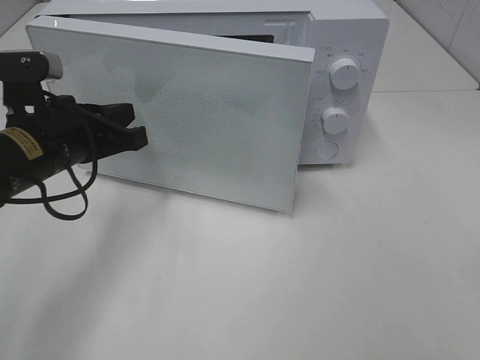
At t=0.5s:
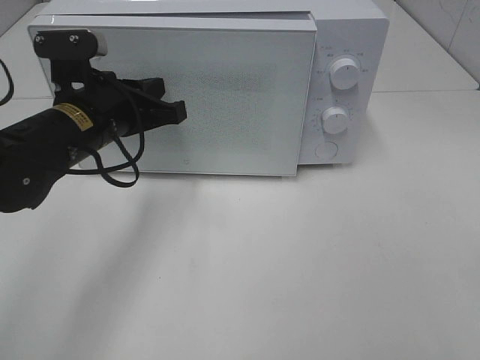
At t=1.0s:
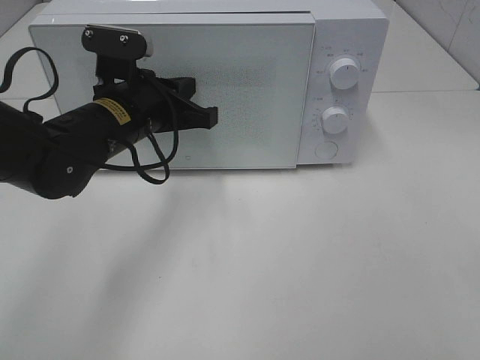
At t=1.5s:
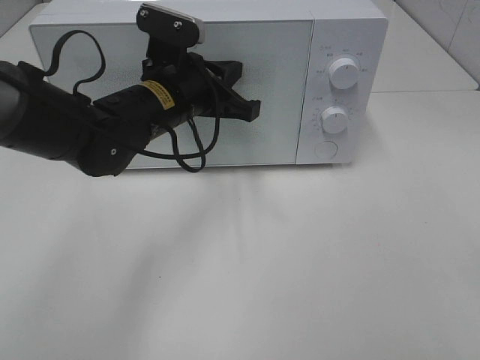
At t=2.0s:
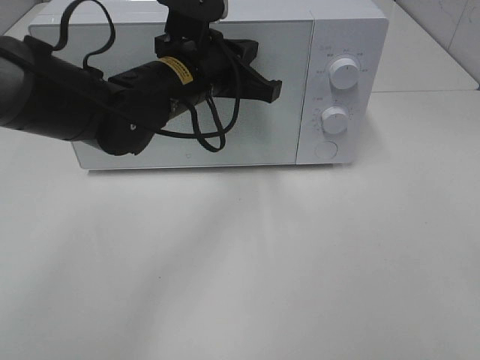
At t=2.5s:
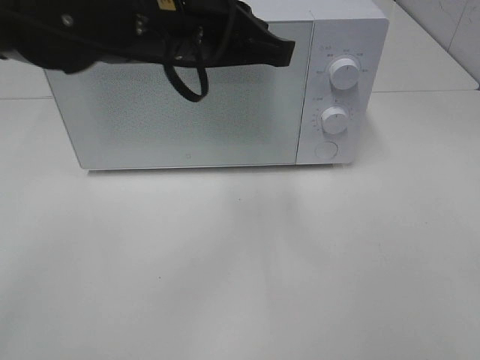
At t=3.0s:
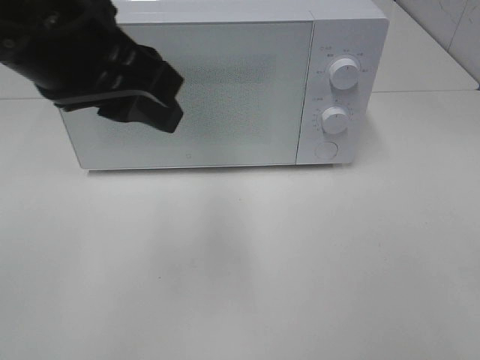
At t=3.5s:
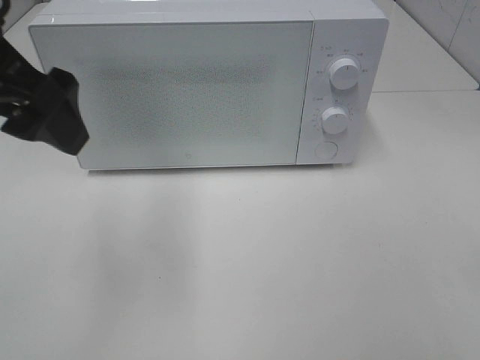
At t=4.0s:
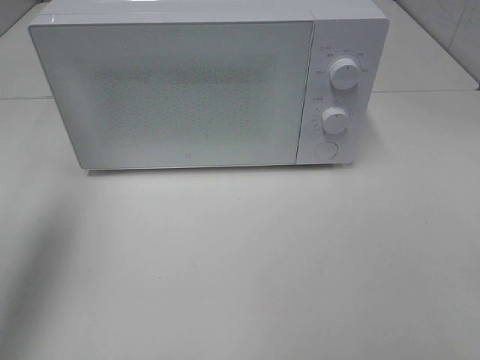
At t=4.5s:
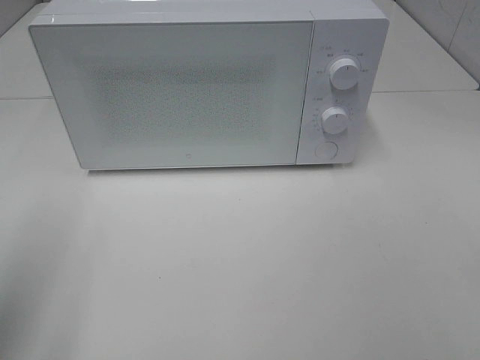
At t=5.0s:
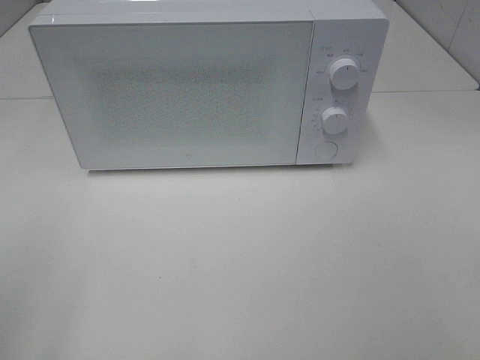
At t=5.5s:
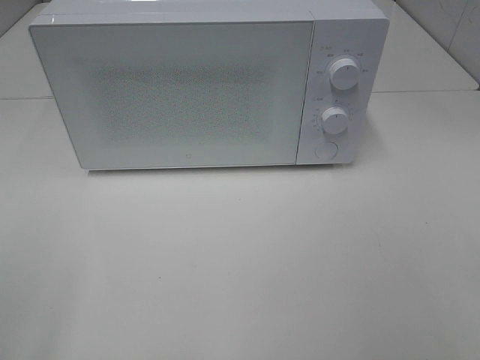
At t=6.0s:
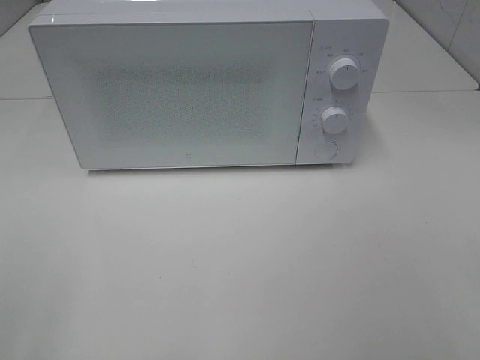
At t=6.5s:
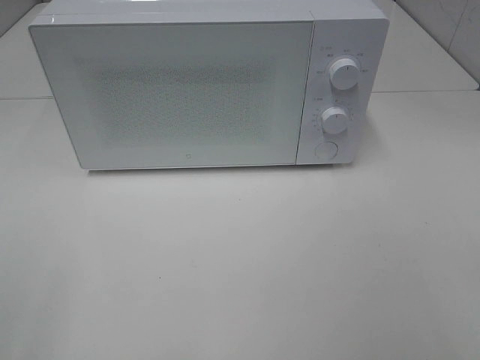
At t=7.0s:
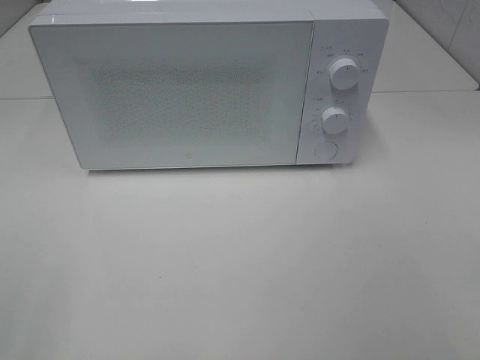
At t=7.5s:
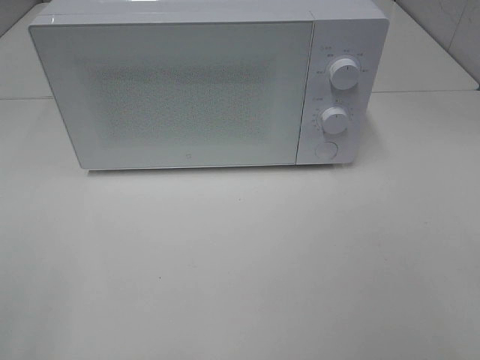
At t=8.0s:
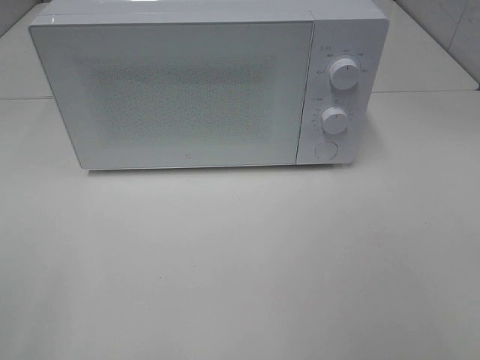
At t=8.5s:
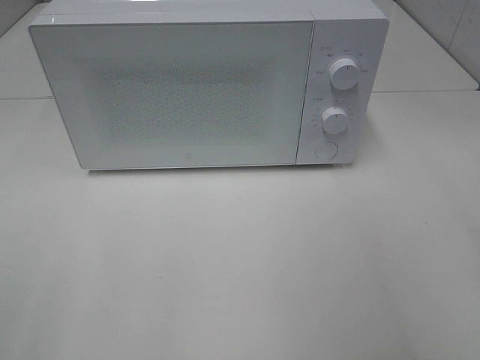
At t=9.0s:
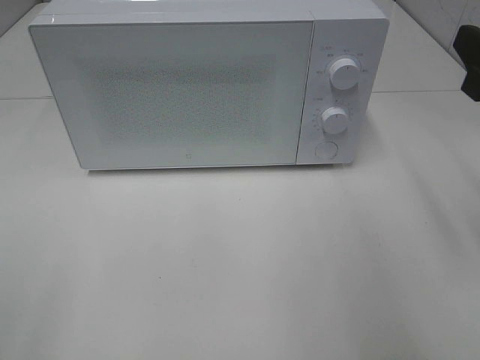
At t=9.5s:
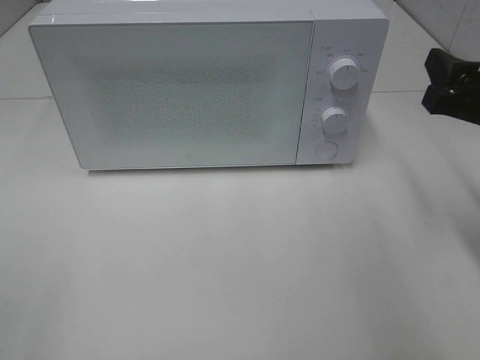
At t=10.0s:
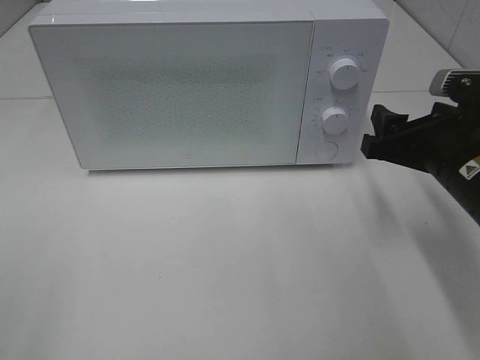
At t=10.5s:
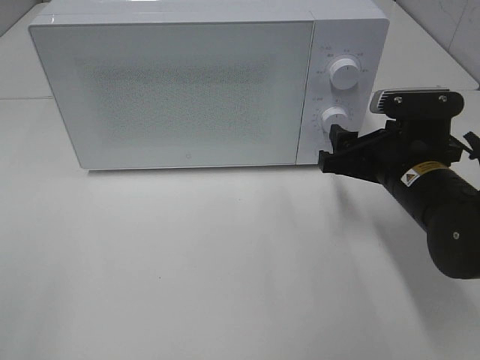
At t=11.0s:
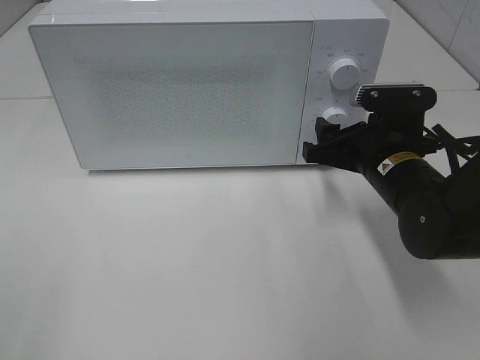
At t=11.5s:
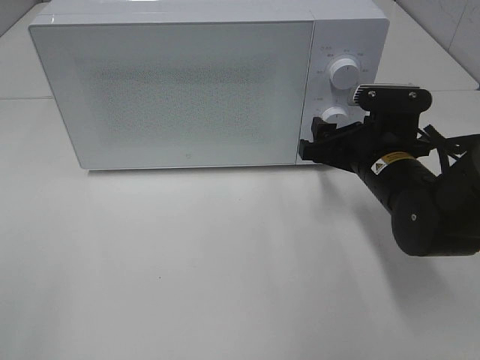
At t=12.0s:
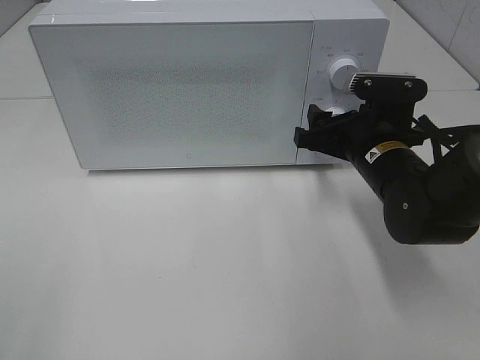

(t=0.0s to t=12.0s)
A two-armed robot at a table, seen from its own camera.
Task of the whole recording: Heat the burger.
Step, t=0.0s - t=2.5s: Left hand: close the microwave door.
t=0.0s - t=2.0s: The left gripper is displaced to the right and forward by some 15 cm.
t=2.0s - t=4.0s: The left gripper is displaced to the left, upward and backward by roughly 30 cm, and opens.
t=4.0s - t=6.0s: The left gripper heads backward, covering some 25 cm.
t=8.0s - t=10.0s: The right gripper shifts about 25 cm forward and downward.
t=10.0s - t=12.0s: The right gripper travels forward and to the left by some 10 cm.

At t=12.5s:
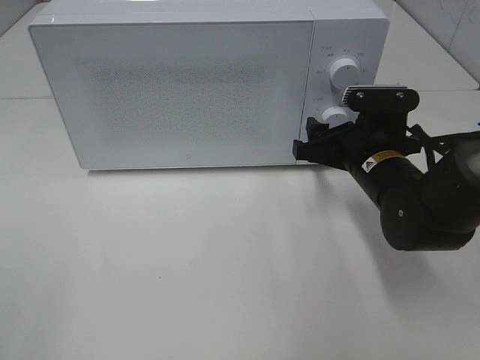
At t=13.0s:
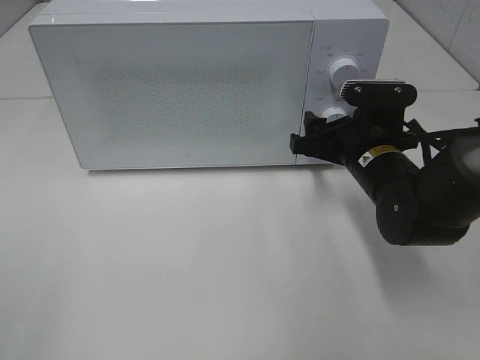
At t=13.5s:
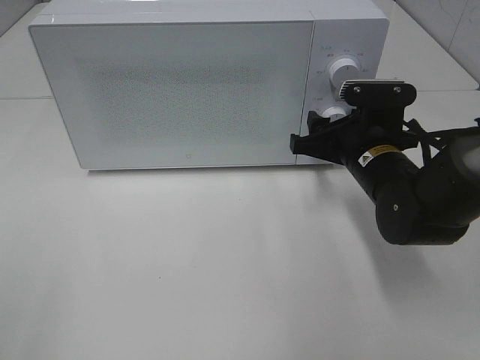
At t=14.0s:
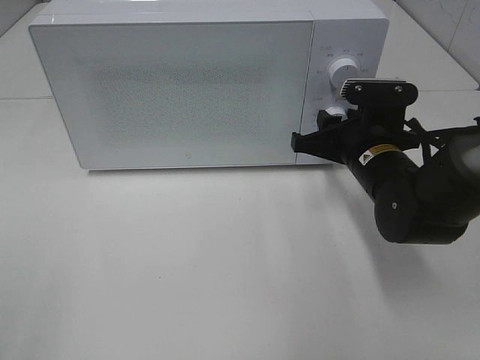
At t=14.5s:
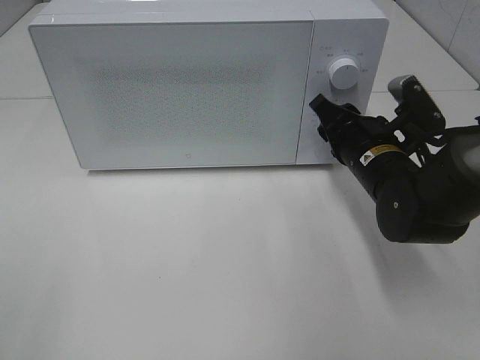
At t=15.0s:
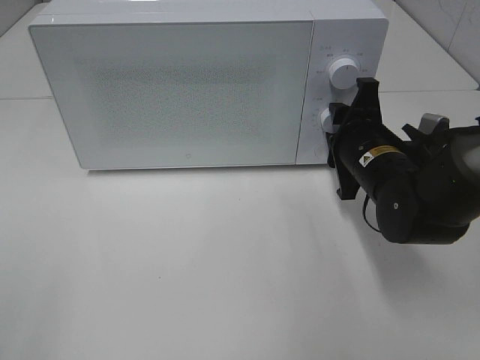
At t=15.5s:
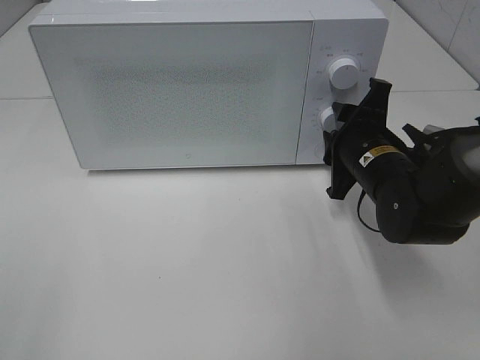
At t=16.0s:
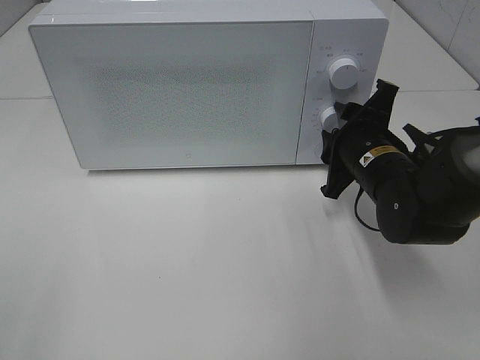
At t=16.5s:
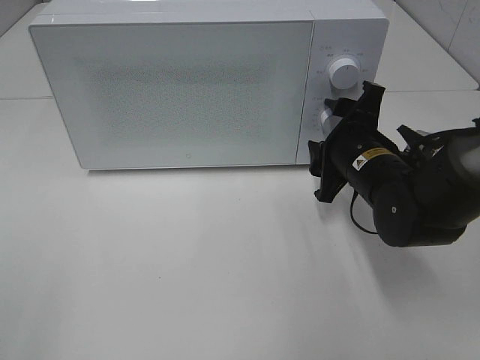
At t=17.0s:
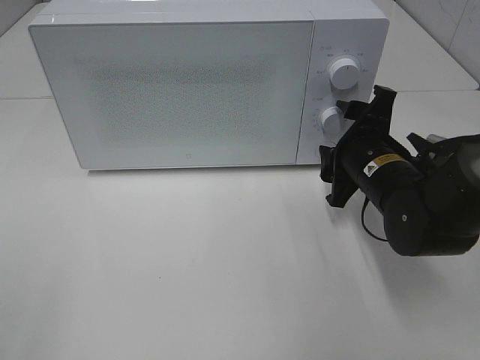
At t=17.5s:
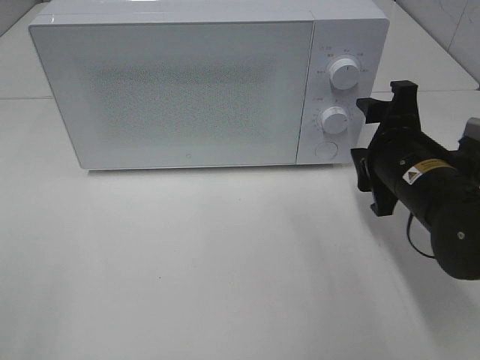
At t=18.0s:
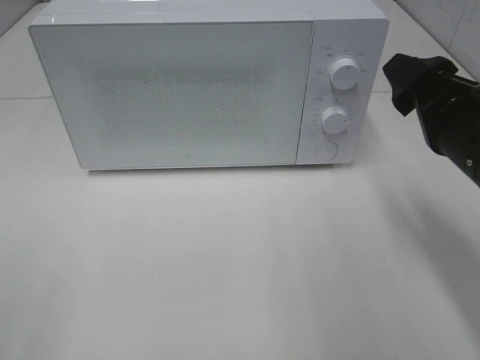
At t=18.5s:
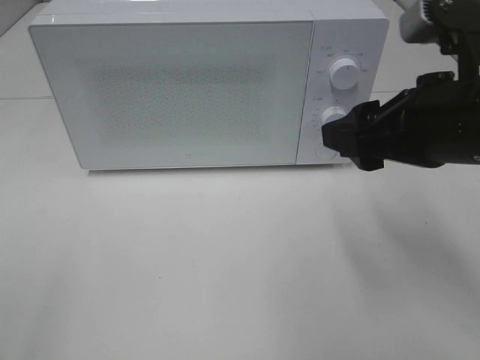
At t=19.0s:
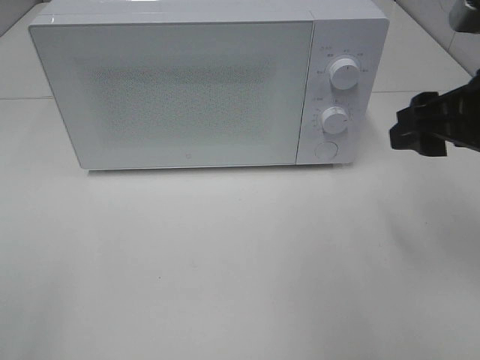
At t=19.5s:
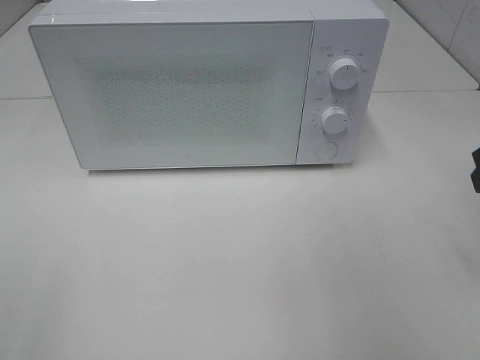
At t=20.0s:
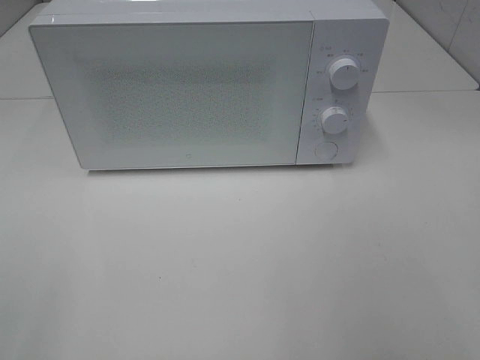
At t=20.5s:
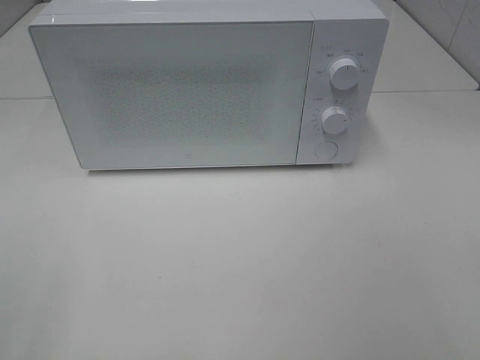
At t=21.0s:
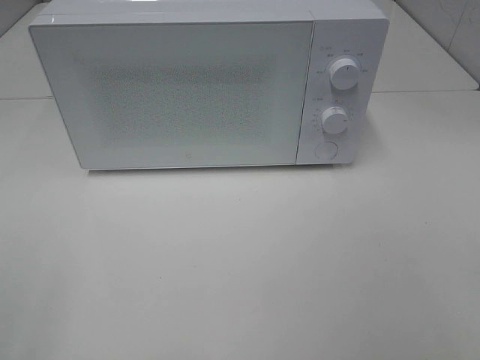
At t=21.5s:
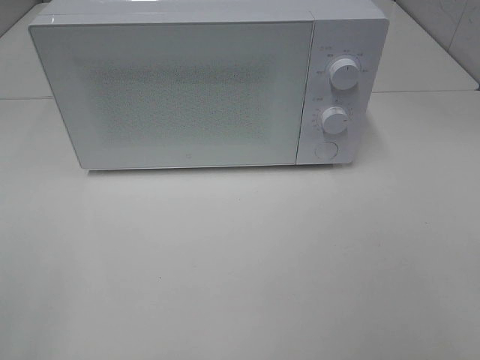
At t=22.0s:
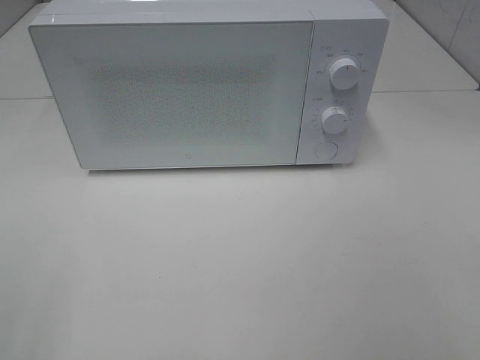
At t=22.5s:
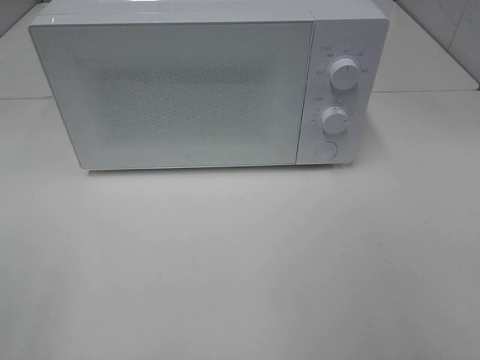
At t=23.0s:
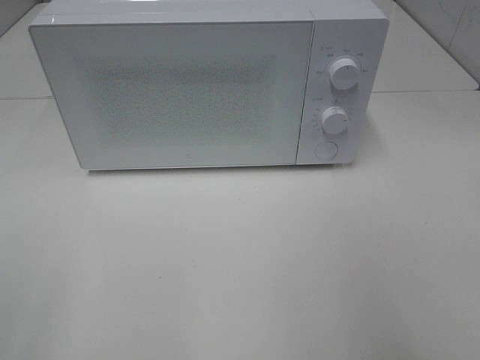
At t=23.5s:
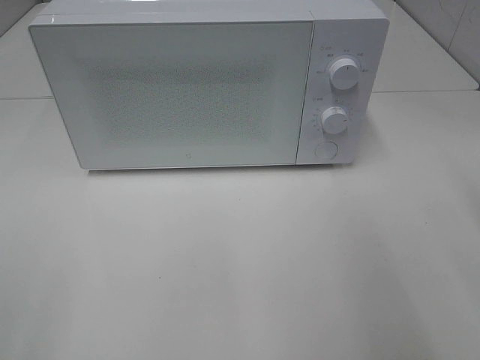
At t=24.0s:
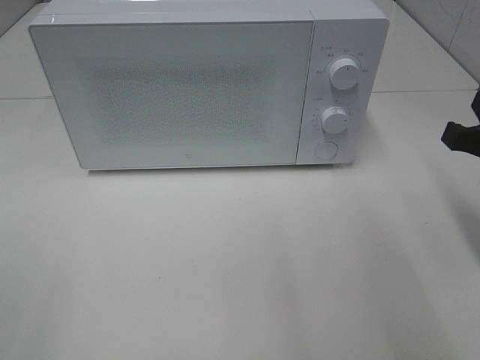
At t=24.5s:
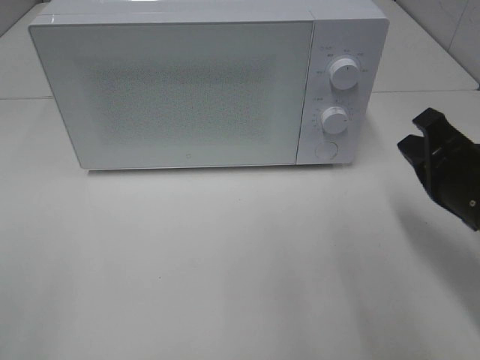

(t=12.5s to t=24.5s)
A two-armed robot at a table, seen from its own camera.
Task of the whole recording: Heat the burger.
Step, t=12.5s - t=16.5s: Right hand: twist timer button.
t=16.5s - t=18.5s: The right gripper heads upward and backward, covering roughly 15 cm.
t=18.5s - t=20.5s: The right gripper travels backward and to the right by some 25 cm.
t=22.5s - t=24.5s: The right gripper is displaced forward and downward by about 25 cm, and closes.

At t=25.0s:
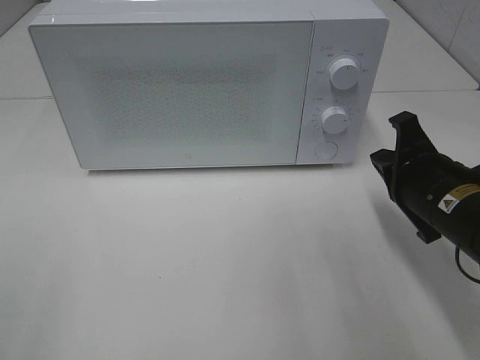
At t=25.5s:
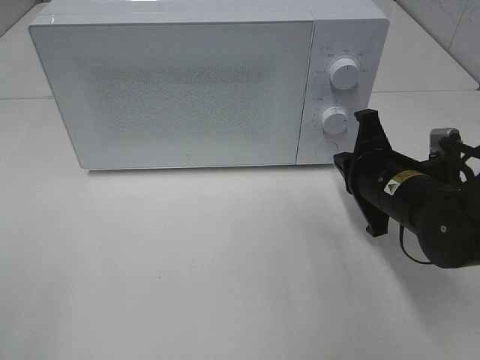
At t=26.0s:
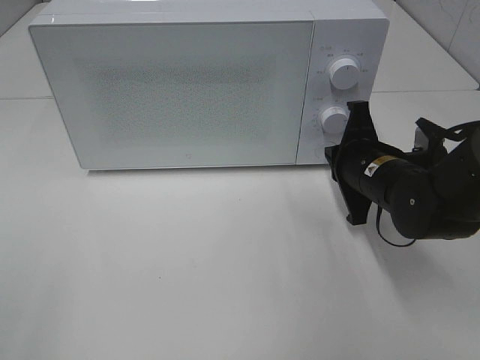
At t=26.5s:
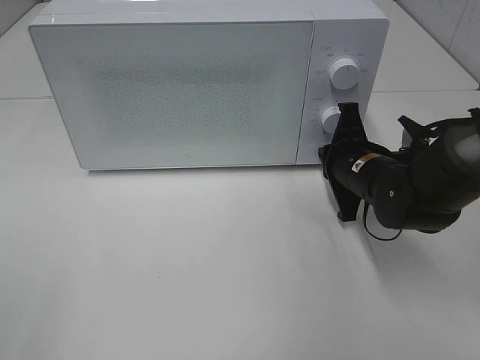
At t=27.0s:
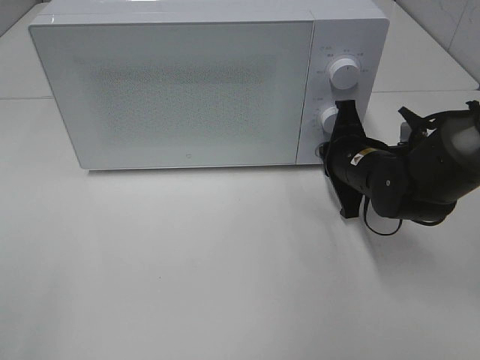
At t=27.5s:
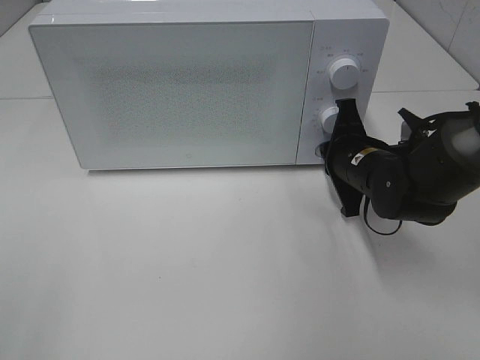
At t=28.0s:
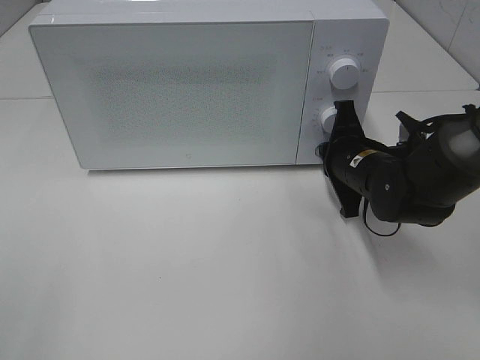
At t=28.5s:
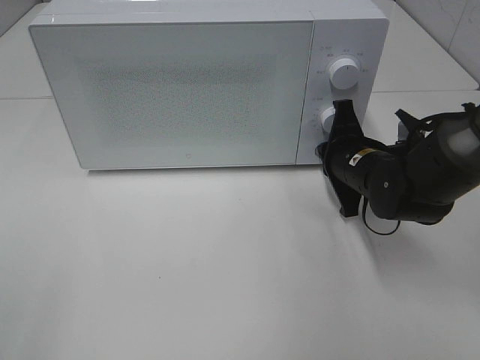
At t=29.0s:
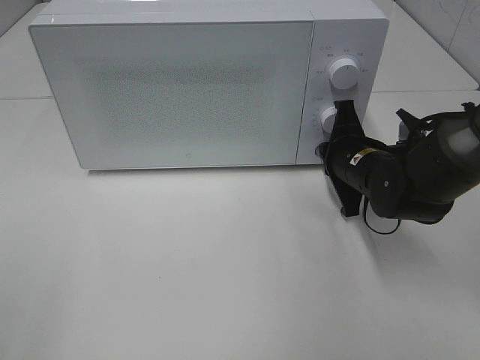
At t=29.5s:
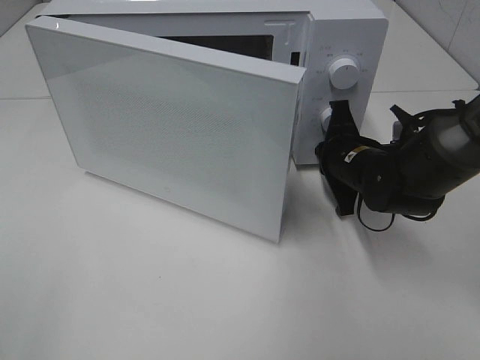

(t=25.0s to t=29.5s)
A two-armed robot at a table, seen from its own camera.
Task of the whole recording: Heat the burger.
t=25.0s - t=27.0s: The right gripper shifts roughly 10 cm forward.
t=27.0s - t=29.5s: There are only small adjustments of the grippers.
